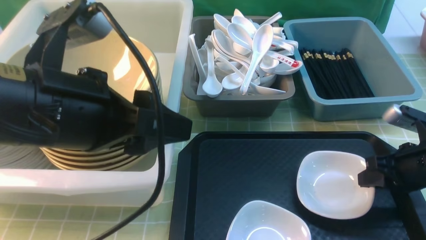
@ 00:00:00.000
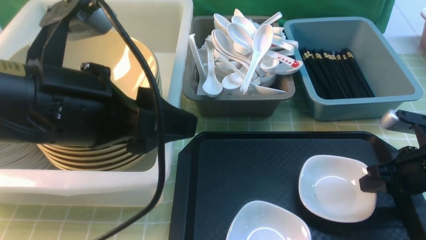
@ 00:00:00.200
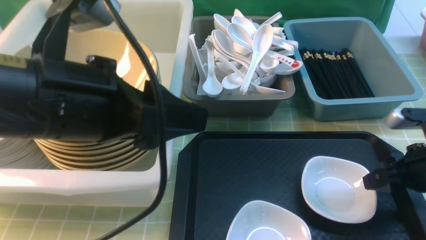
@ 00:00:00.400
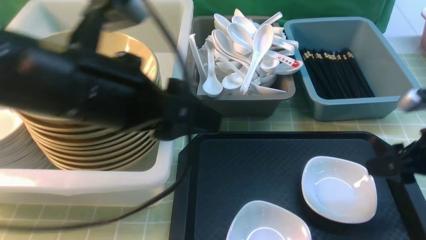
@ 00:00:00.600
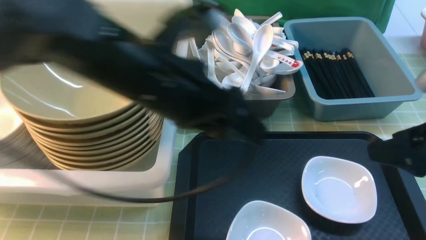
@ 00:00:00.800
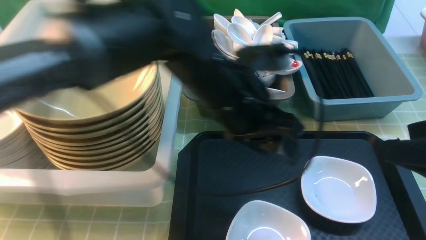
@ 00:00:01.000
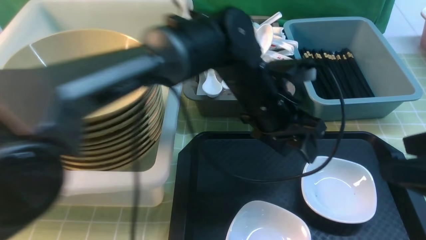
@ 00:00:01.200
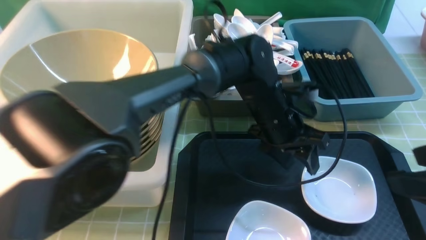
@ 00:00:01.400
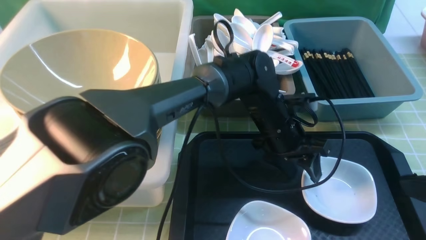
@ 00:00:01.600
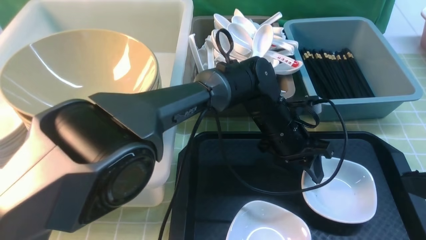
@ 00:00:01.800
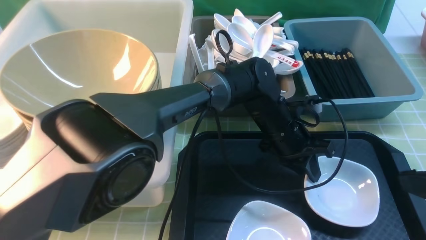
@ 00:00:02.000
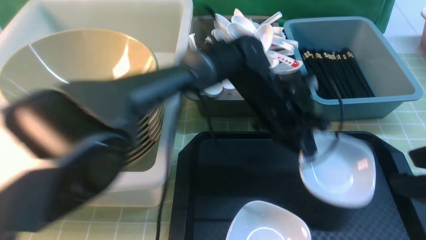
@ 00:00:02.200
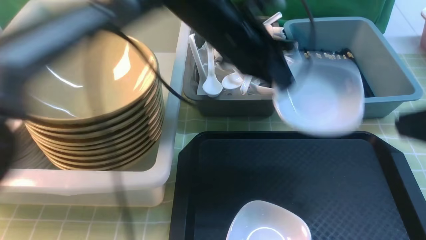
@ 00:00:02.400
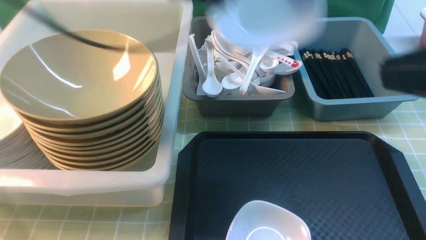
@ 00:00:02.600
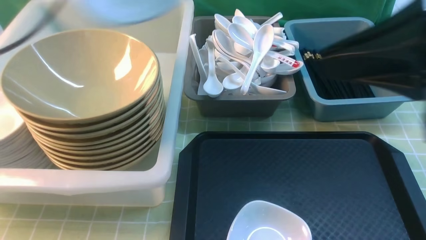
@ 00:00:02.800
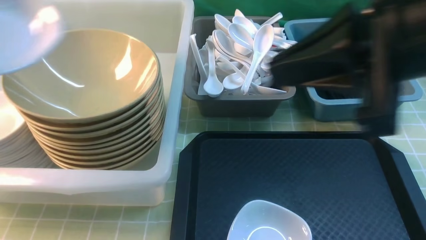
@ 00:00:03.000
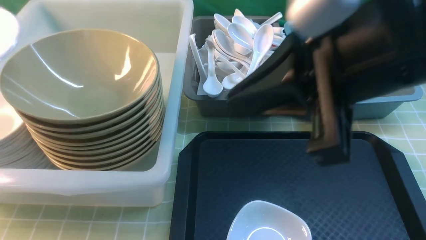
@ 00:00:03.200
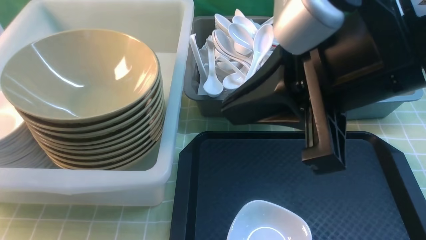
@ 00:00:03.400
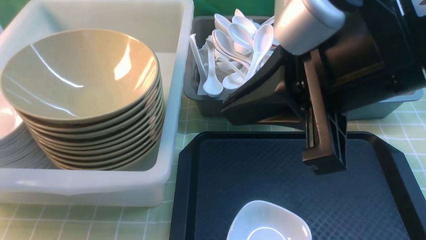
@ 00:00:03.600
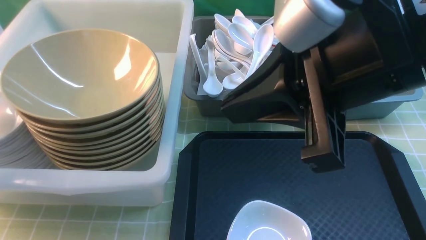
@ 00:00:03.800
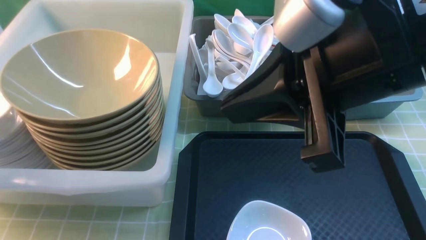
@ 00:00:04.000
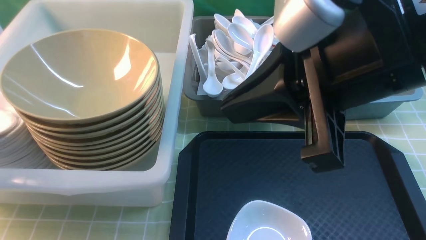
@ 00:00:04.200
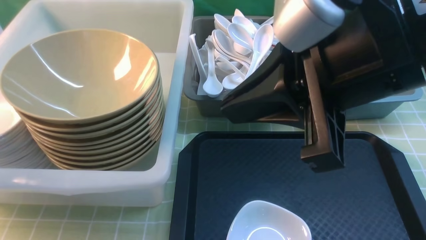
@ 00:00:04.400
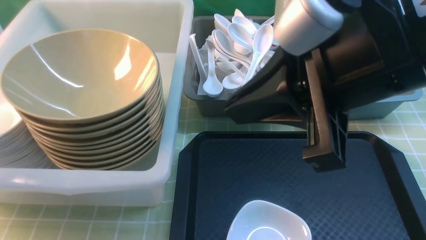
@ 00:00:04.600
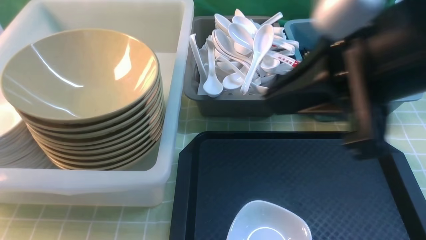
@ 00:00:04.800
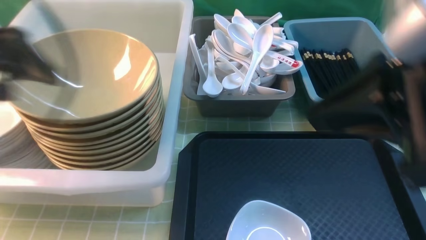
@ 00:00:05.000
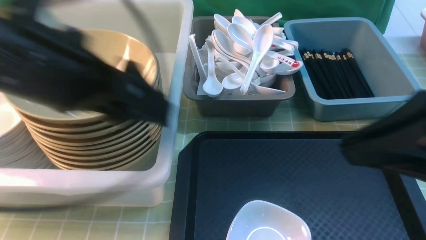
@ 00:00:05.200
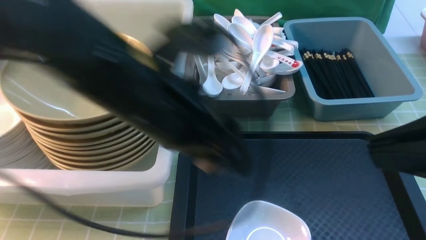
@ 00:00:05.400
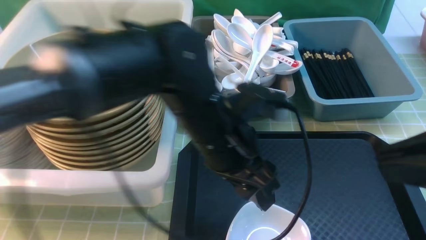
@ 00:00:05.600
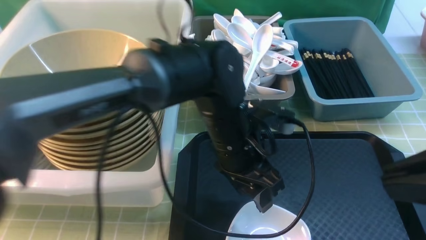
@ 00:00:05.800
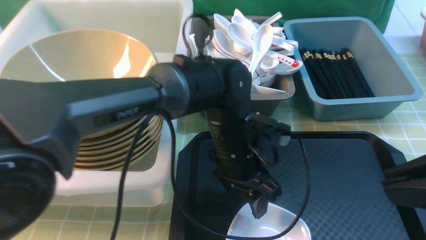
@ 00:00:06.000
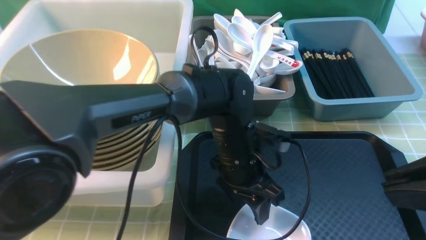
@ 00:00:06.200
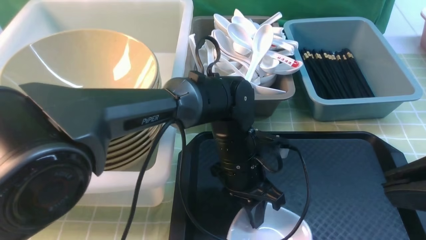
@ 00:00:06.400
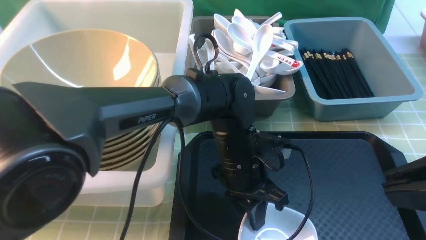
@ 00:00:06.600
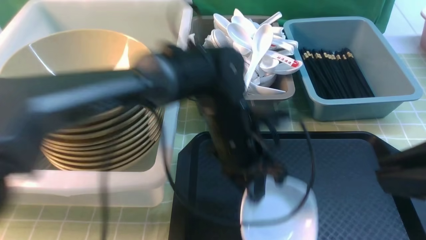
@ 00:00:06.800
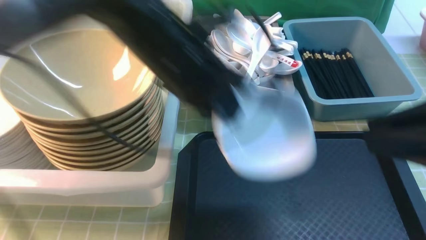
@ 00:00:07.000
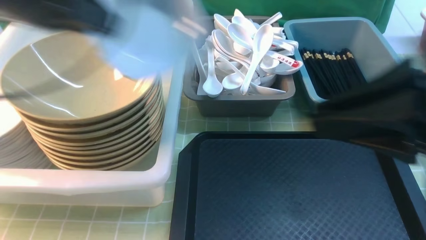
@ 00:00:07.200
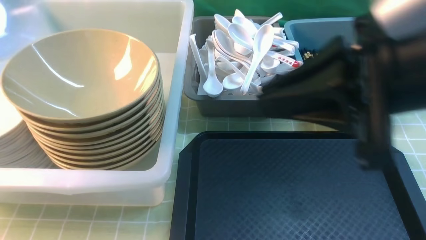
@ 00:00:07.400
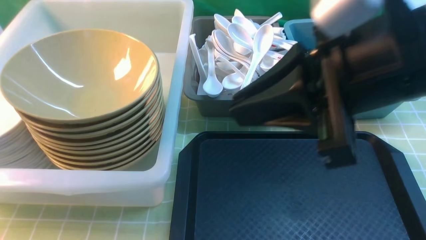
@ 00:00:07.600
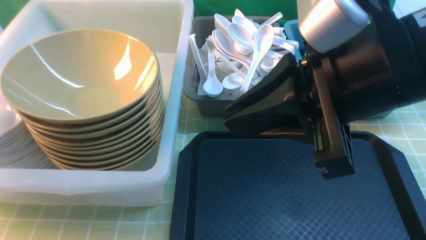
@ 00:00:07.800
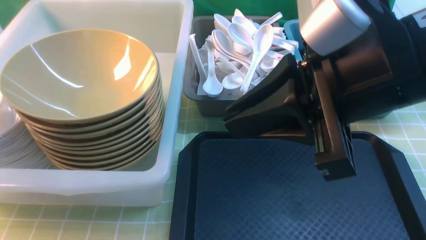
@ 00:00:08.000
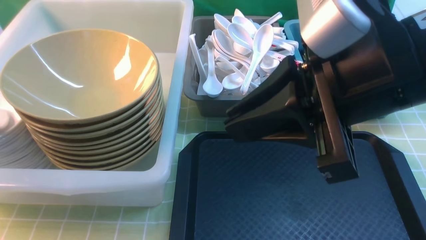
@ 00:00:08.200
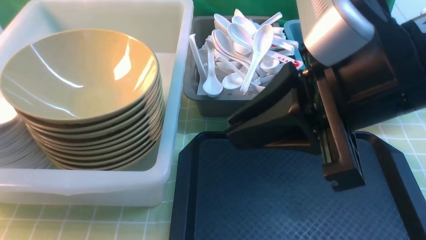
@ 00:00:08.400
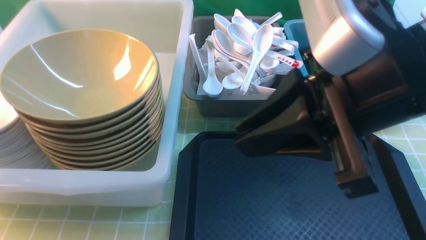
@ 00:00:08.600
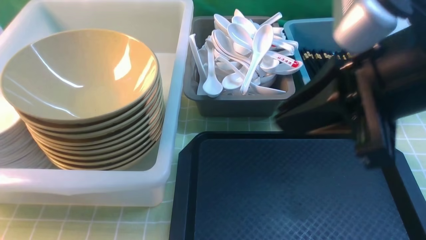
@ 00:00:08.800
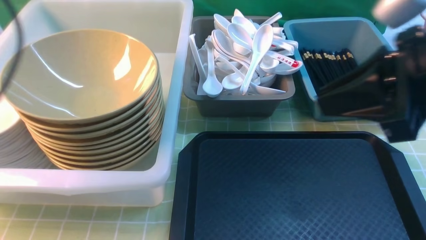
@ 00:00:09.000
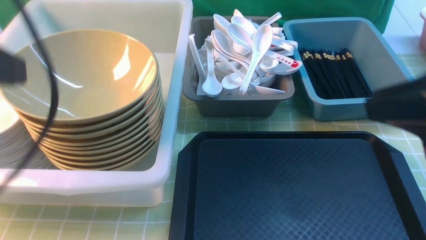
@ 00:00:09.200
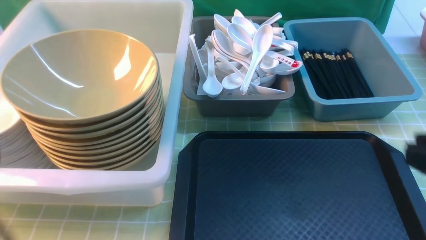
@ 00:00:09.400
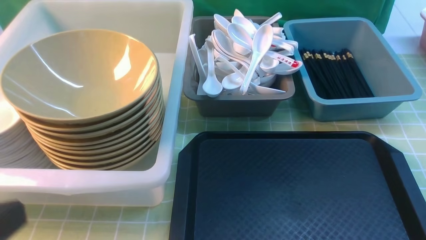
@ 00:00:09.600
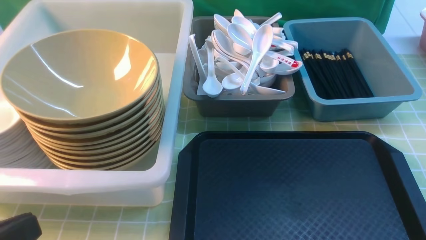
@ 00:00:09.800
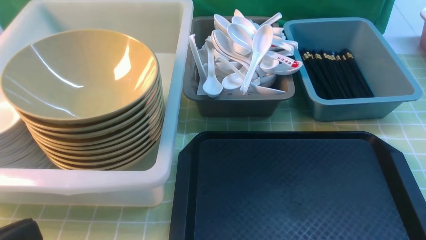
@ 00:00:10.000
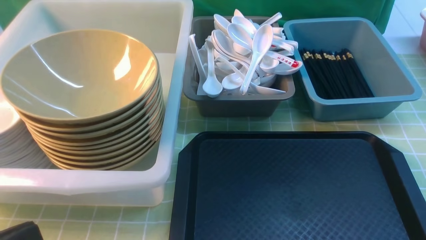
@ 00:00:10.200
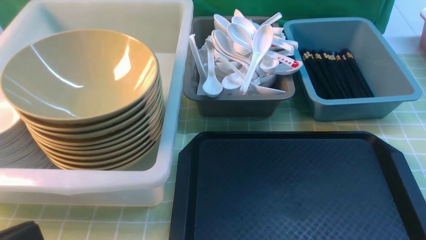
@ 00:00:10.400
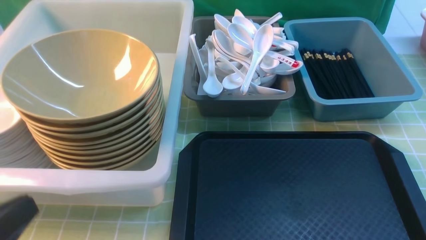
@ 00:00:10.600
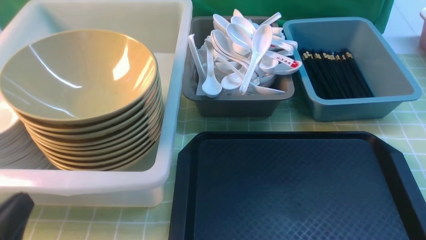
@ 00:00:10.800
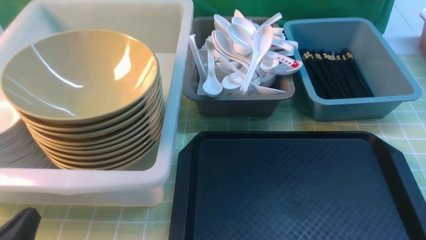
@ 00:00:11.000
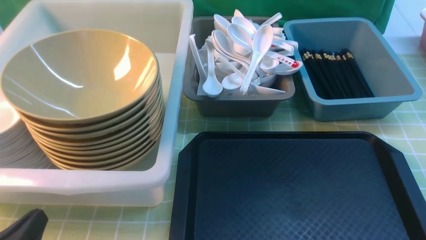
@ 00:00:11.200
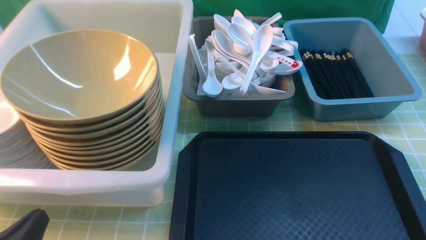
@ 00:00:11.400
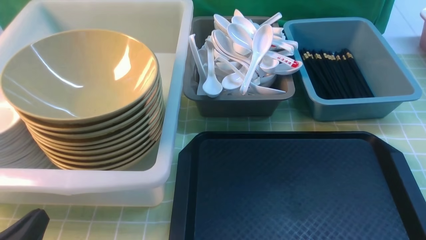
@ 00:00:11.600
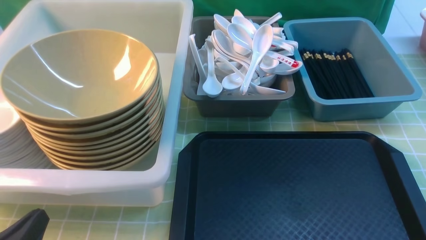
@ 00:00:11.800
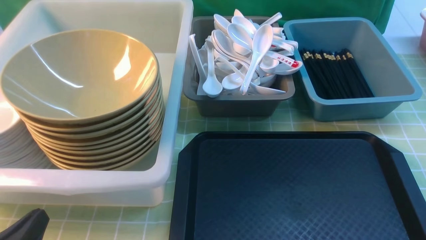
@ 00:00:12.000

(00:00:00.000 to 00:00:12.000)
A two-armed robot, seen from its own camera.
Task of the whole recording: on green table put chopsticks spoon bowls plates into blue grey white boxes.
Step, 00:00:00.000 - 00:00:00.400: use the right arm to put the plate on the tray.
Step, 00:00:00.600 - 00:00:02.000: use the left arm to grab the plate.
Step, 00:00:02.200 - 00:00:04.400: use the left arm to put the plate into the large storage box on the left.
Step, 00:00:04.600 - 00:00:06.600: use the left arm to grab the plate.
Step, 00:00:07.000 - 00:00:09.000: use the left arm to put the plate into the large storage box on the left.
00:00:00.000 - 00:00:01.600: The left gripper travels to the right, downward and forward by approximately 35 cm, while the right gripper shifts some 20 cm upward and backward, and opens its fingers.
00:00:01.600 - 00:00:03.000: The left gripper travels to the left and upward by about 50 cm, and closes its fingers; the right gripper heads to the left and upward, covering some 15 cm, and closes up.
00:00:03.000 - 00:00:04.400: The left gripper moves downward and to the left, about 10 cm, and opens its fingers.
00:00:04.400 - 00:00:06.000: The right gripper goes some 15 cm to the right and backward, while the left gripper is displaced to the right by some 40 cm.
00:00:06.000 - 00:00:07.600: The left gripper travels to the left and upward by approximately 50 cm, and closes its fingers. Meanwhile the right gripper shifts roughly 15 cm forward and to the left.
00:00:07.600 - 00:00:09.000: Both grippers travel together to the right, approximately 10 cm. The left gripper opens up.
00:00:09.000 - 00:00:10.400: The left gripper moves backward and downward, about 20 cm, and closes its fingers, while the right gripper is displaced backward, downward and to the right by about 20 cm.

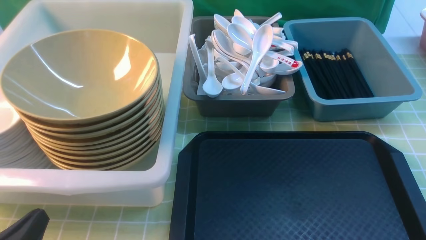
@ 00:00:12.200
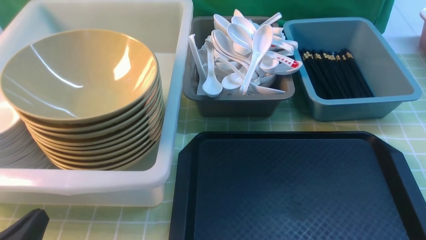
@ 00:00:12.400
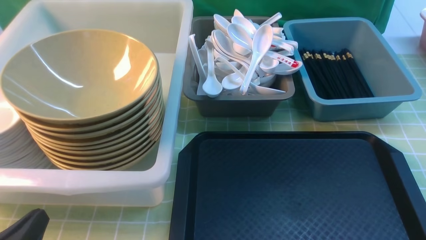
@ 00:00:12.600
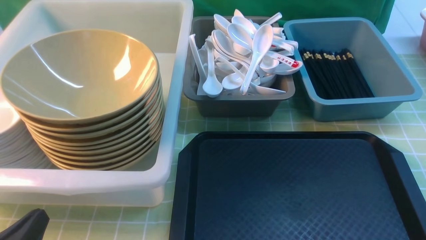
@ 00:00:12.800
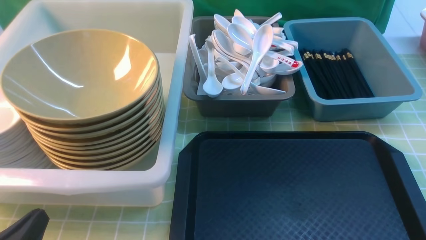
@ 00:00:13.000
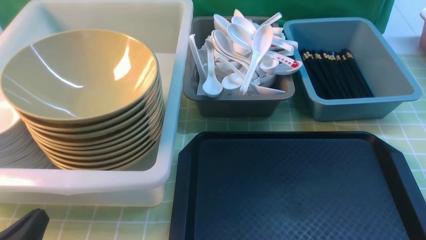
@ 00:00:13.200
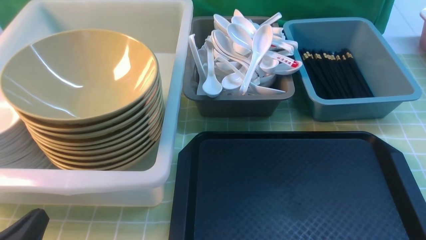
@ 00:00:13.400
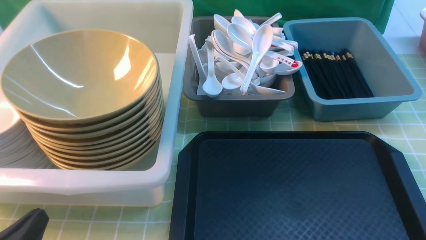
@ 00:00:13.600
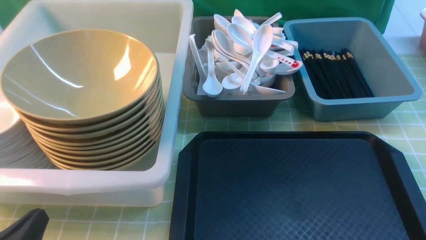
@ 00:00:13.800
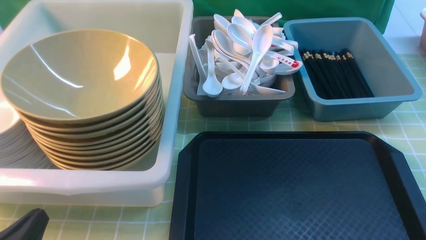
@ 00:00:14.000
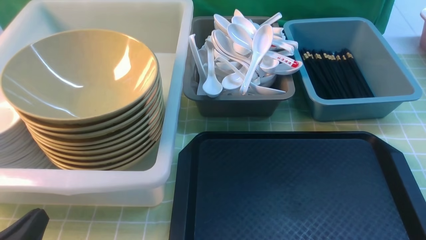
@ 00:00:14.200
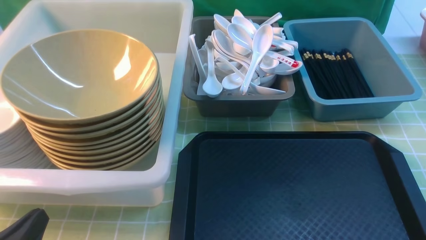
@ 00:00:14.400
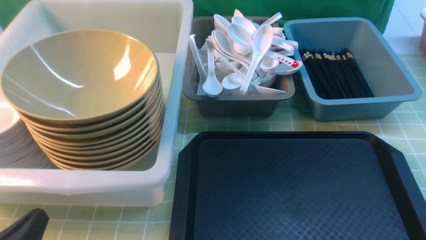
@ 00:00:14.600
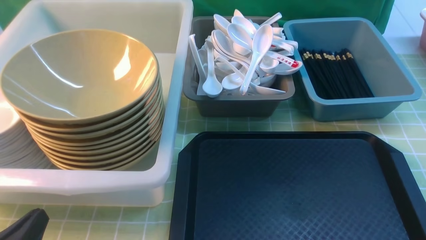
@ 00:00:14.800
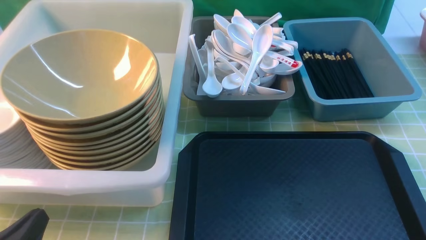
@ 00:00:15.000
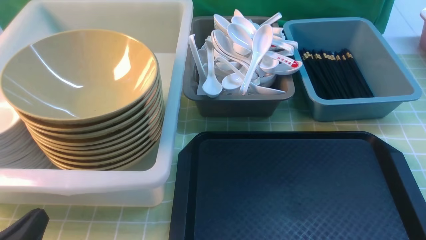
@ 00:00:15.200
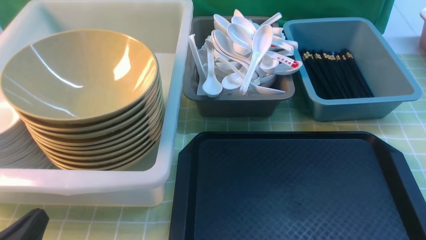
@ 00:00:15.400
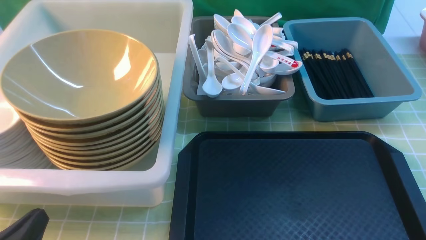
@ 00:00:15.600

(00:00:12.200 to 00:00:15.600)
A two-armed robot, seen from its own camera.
Task of the whole recording: on green table put chopsticks spoon bowls plates into blue grey white boxes.
00:00:13.800 - 00:00:15.600: Both grippers stay put.
